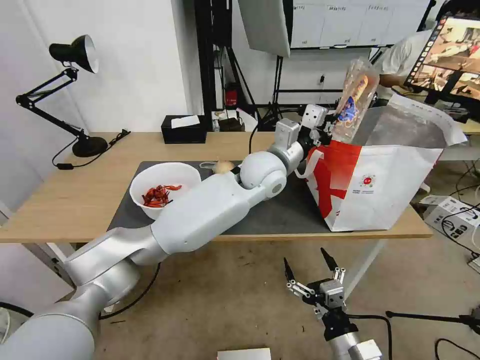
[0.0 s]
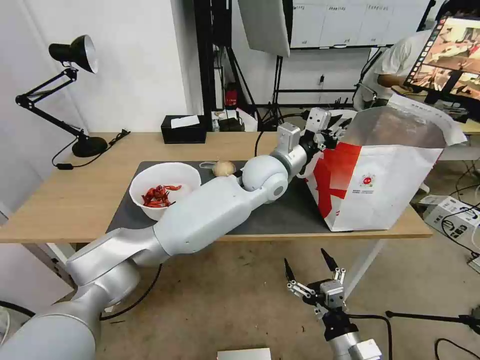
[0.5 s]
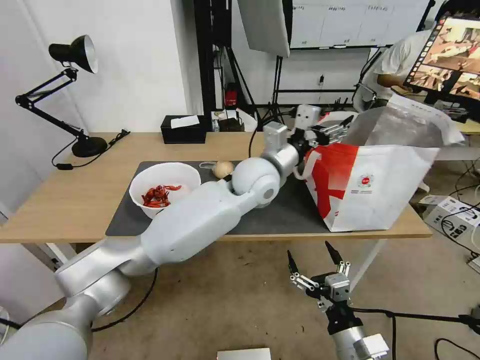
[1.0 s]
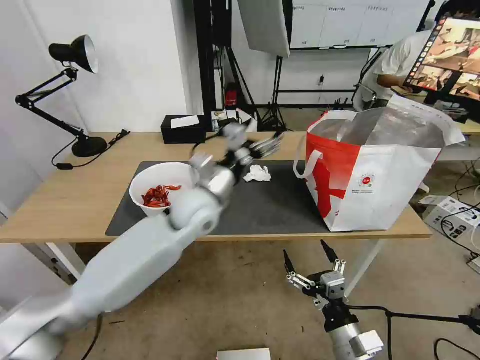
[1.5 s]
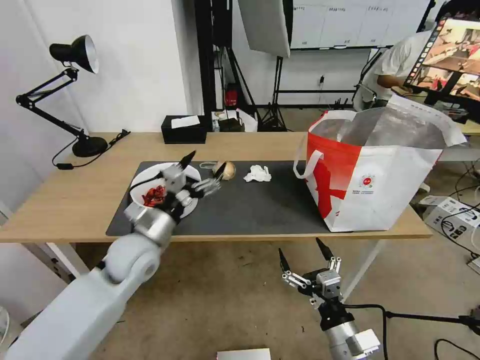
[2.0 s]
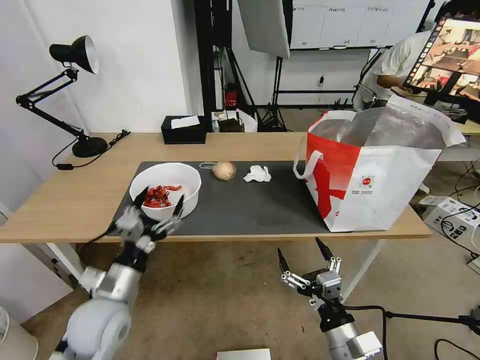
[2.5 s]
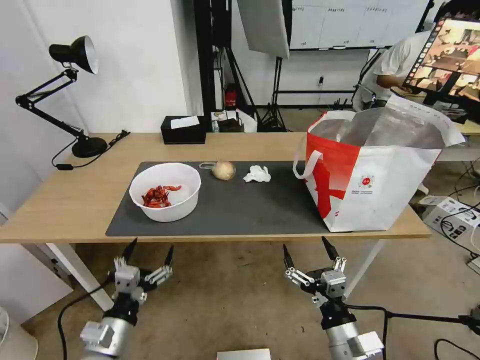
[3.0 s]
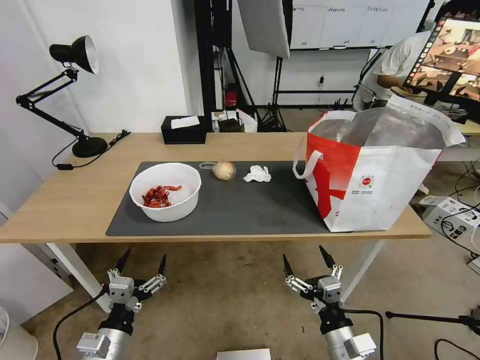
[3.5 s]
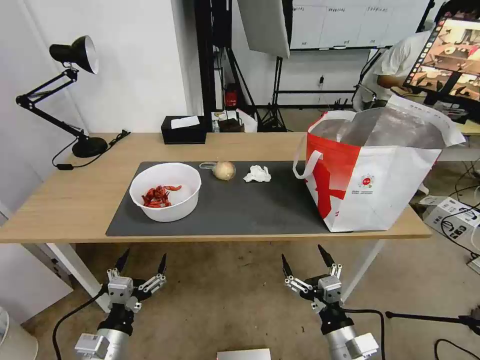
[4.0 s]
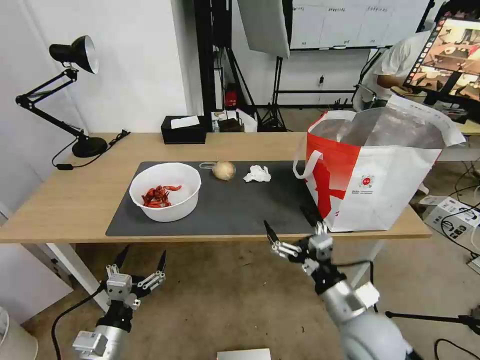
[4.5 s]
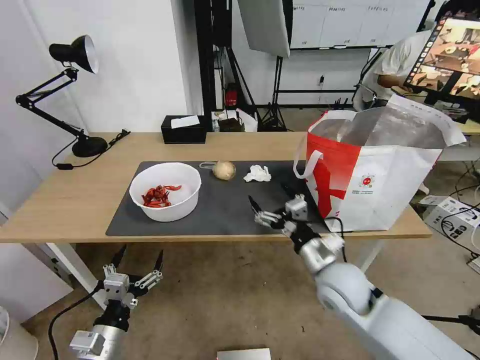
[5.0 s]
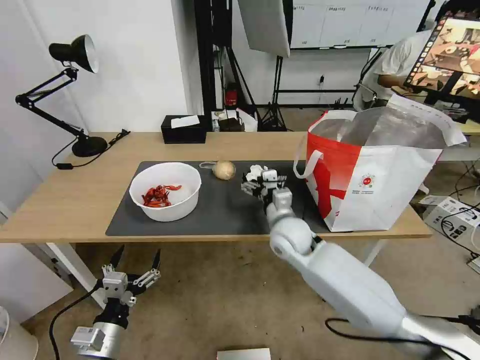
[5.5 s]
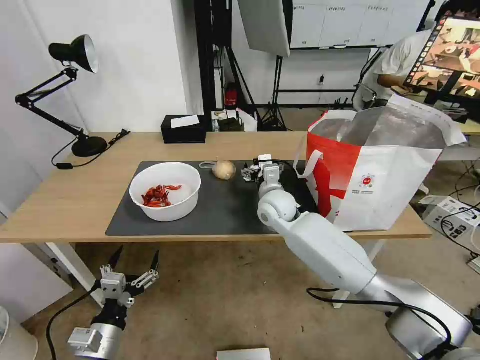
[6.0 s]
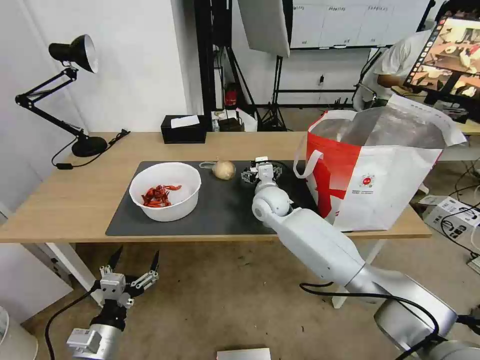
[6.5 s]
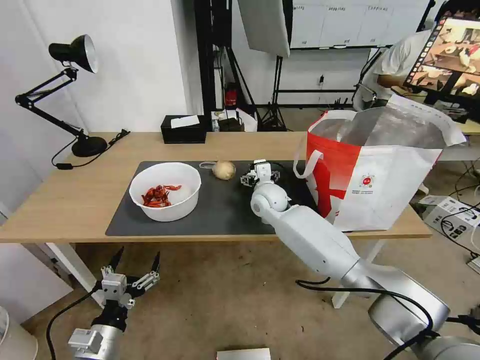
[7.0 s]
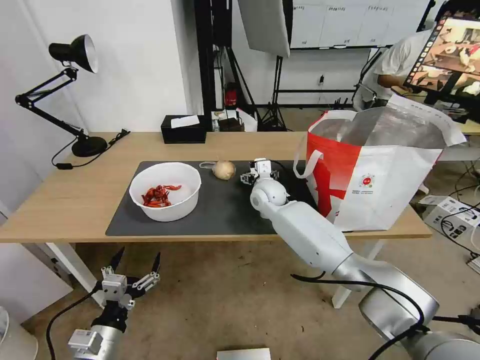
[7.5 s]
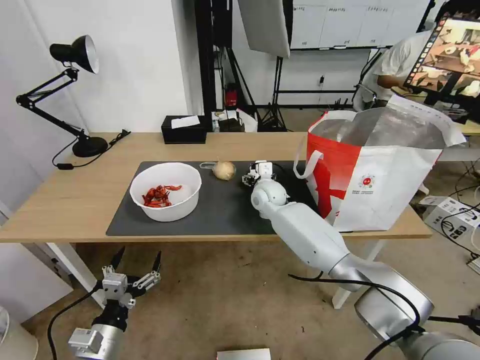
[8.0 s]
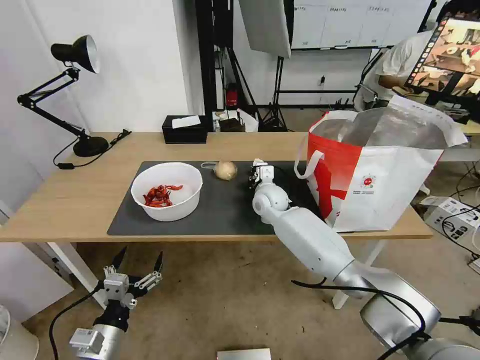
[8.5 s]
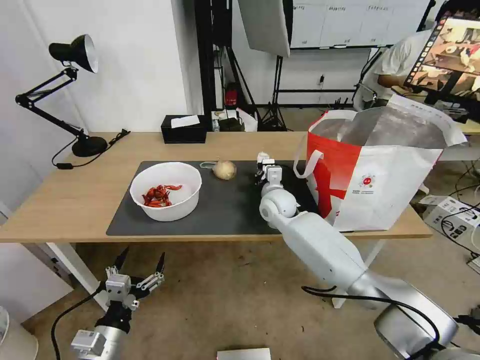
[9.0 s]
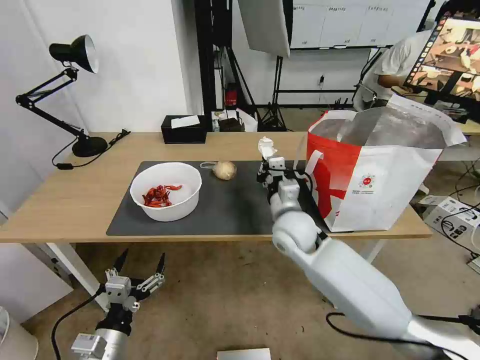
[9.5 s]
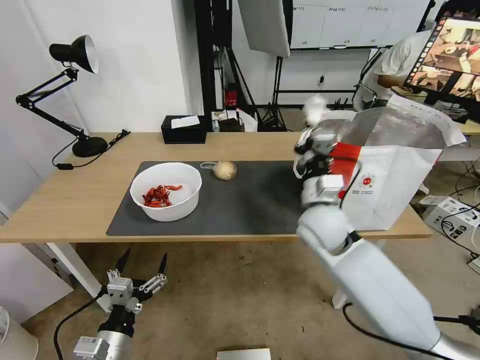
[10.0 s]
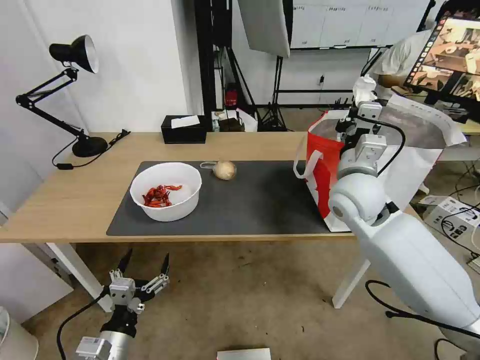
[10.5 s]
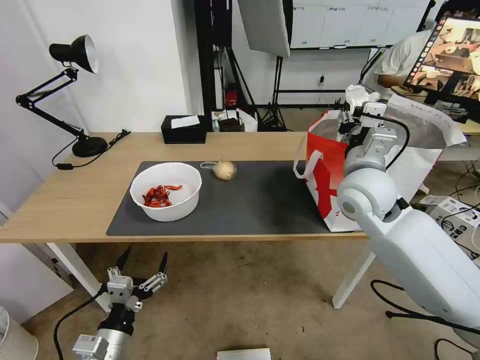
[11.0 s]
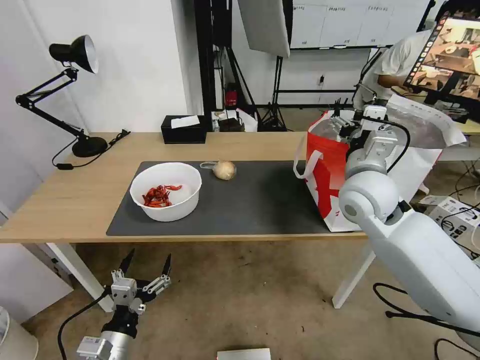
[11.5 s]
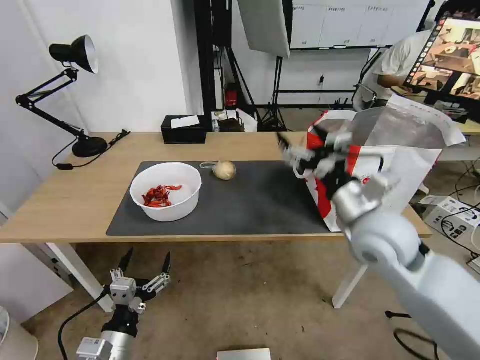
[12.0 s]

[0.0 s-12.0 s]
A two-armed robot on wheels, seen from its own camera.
Task of the whole recording: Pick up the trash from the table and place it into the takeout bag.
0.0 to 2.0 s: The left gripper goes about 35 cm to the left, backward and downward, and opens its fingers.
2.0 to 4.0 s: The left gripper is displaced backward and downward by about 25 cm.
4.0 to 6.0 s: The right gripper travels forward by about 35 cm.
6.0 to 8.0 s: The right gripper is displaced forward by roughly 5 cm.
8.0 to 10.0 s: The right gripper is displaced backward, to the right and upward by approximately 20 cm, and closes its fingers.
10.0 to 12.0 s: The right gripper is displaced to the right, backward and upward by some 10 cm, and opens up.

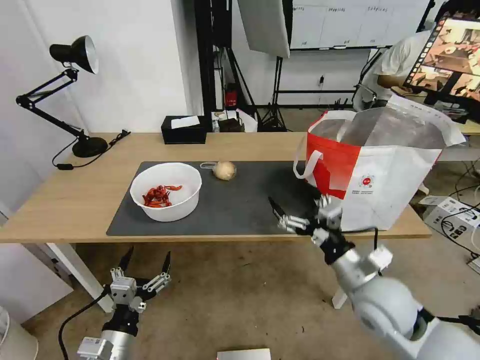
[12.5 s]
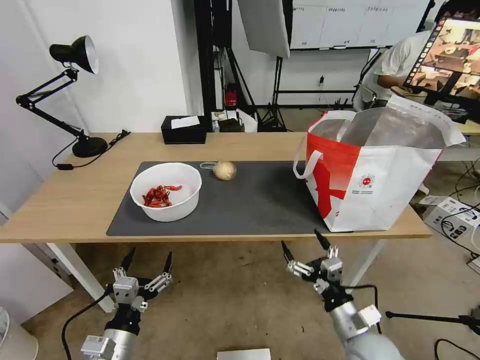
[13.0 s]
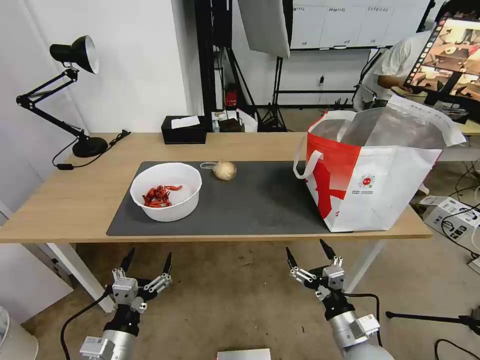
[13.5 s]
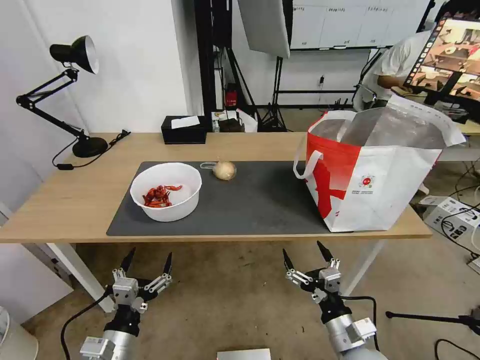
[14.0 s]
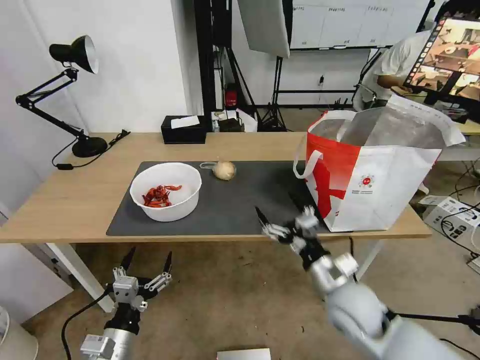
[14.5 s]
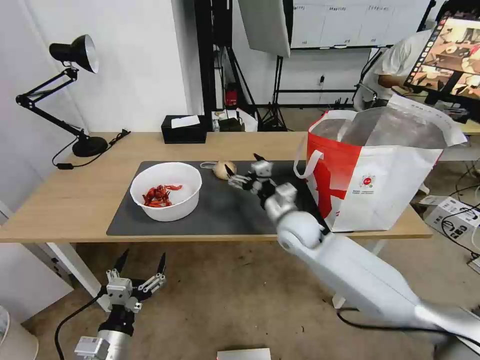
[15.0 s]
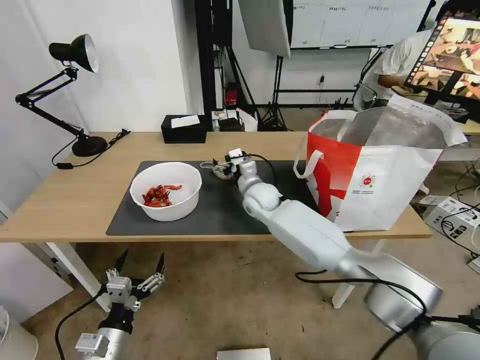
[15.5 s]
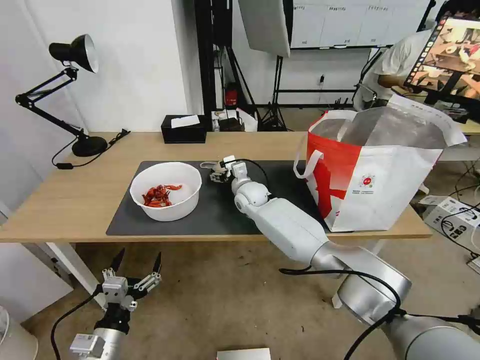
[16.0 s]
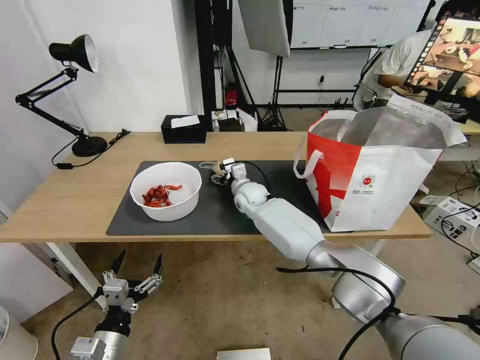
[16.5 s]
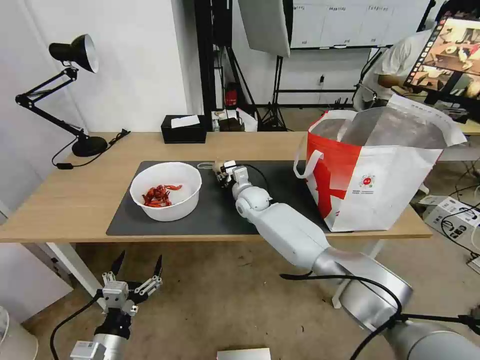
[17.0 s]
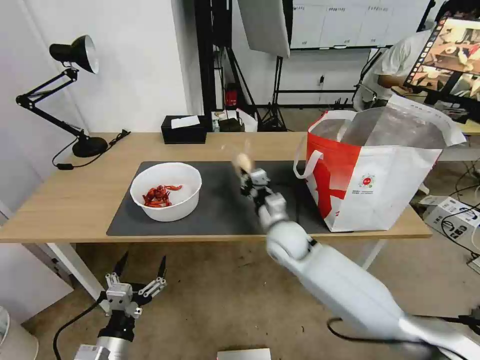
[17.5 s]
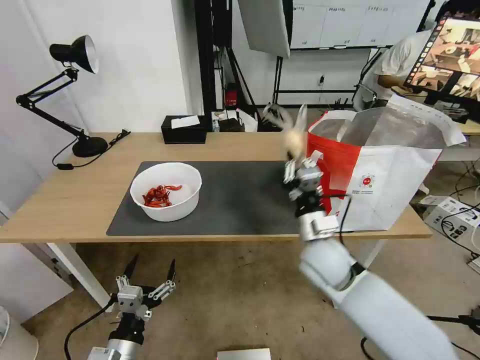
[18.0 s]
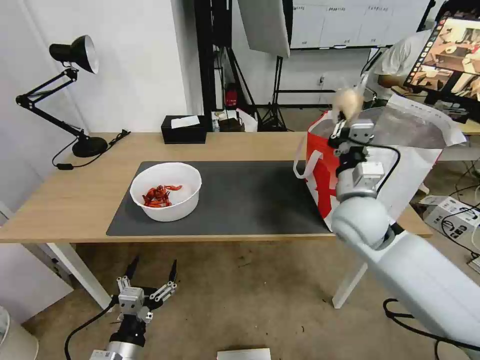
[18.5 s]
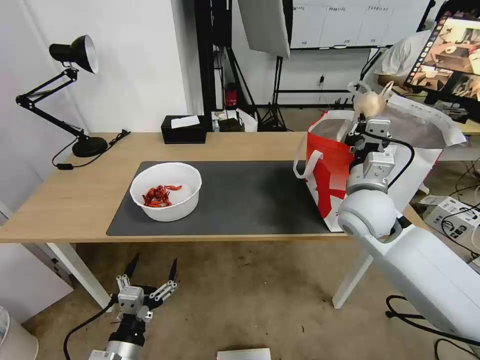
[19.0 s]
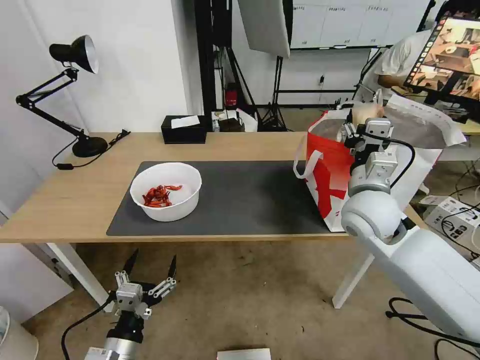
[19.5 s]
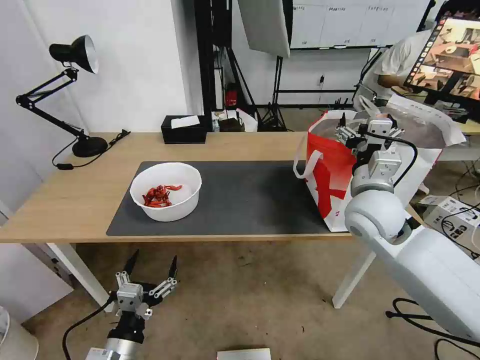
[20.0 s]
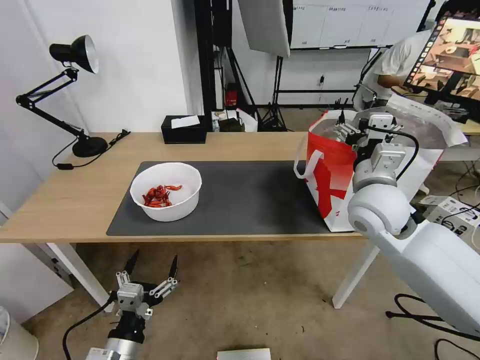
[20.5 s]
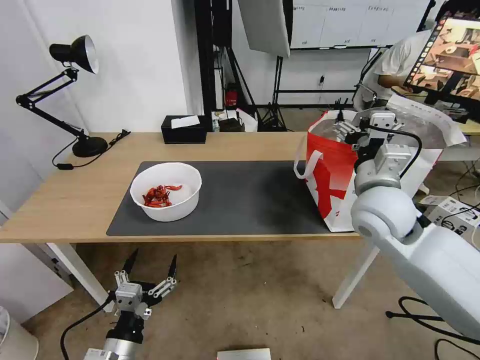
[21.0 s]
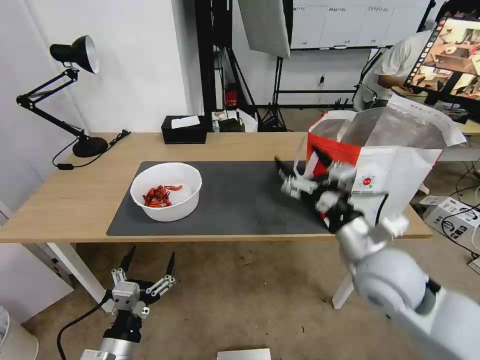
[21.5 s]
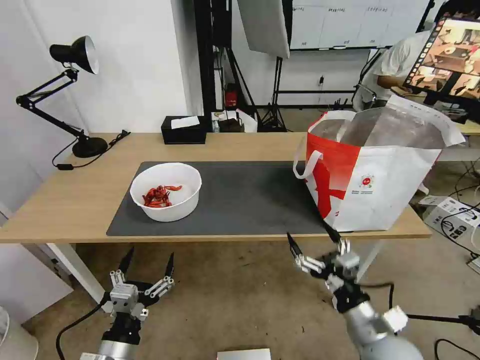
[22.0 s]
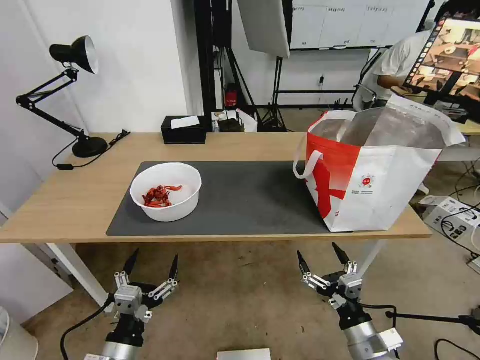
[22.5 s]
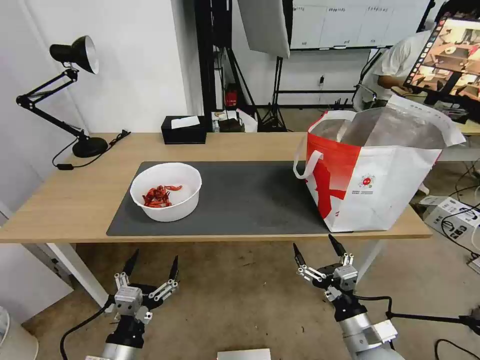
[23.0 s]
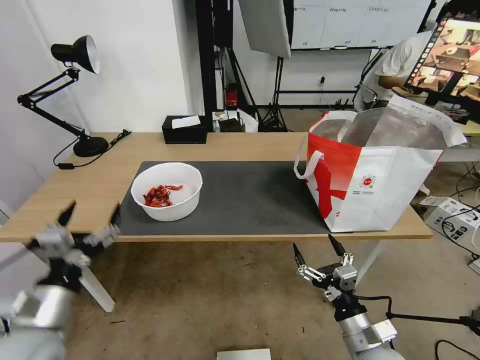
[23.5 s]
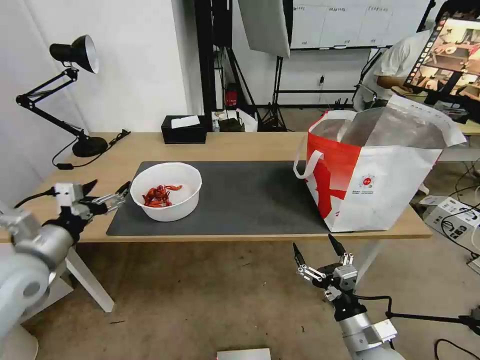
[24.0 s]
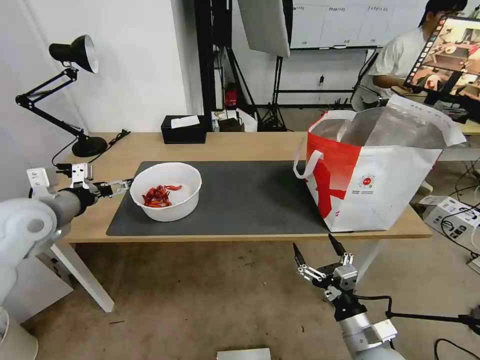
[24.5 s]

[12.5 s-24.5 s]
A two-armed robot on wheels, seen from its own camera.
Task of the whole recording: Pick up the trash from the table and place it into the takeout bag.
12.5 to 14.5 s: The right gripper travels downward and back again, approximately 15 cm each way.
14.5 to 16.5 s: The right gripper heads forward and to the left, covering roughly 35 cm.
16.5 to 18.5 s: The right gripper heads backward, to the right and upward, covering approximately 30 cm, and closes up.
18.5 to 20.5 s: The right gripper opens.
20.5 to 22.5 s: The right gripper goes approximately 35 cm downward and backward.
22.5 to 24.5 s: The left gripper moves forward, upward and to the left, approximately 35 cm.

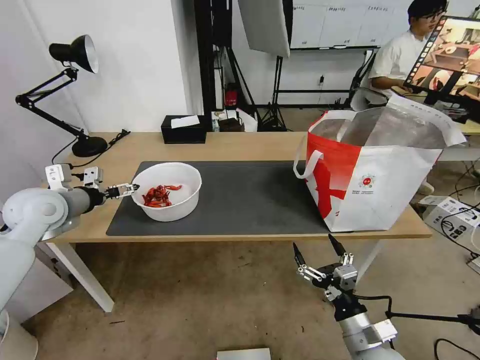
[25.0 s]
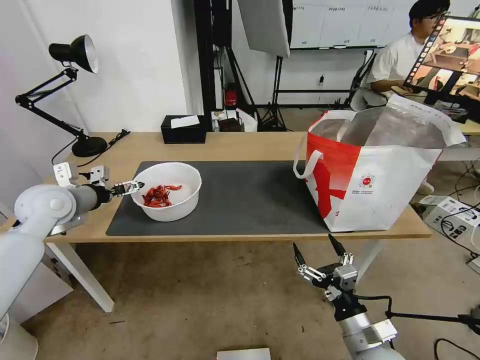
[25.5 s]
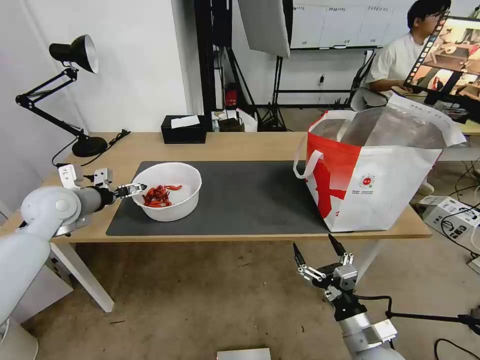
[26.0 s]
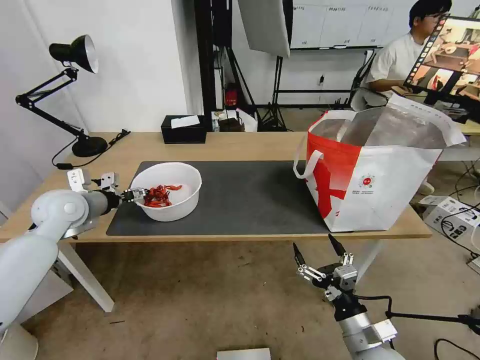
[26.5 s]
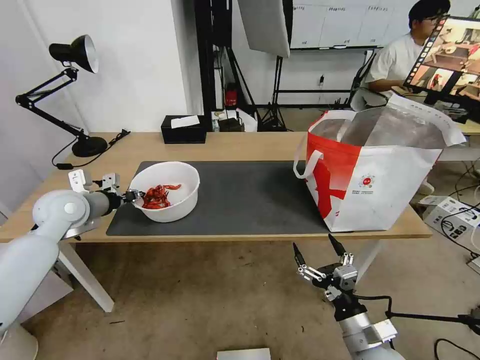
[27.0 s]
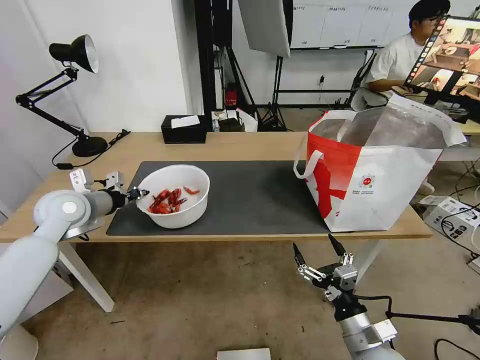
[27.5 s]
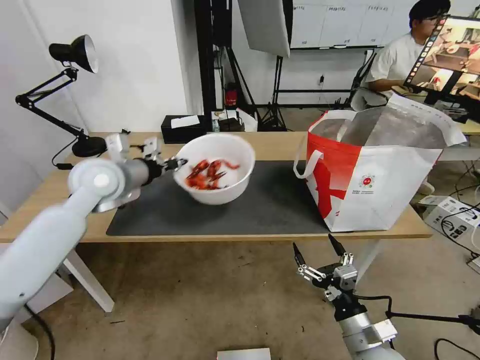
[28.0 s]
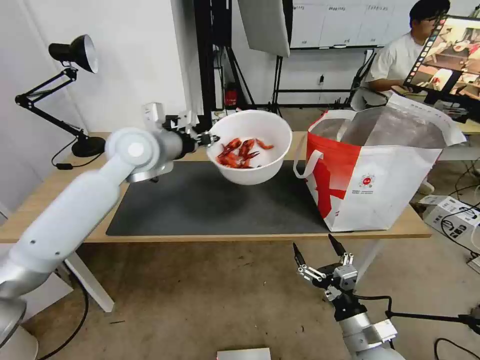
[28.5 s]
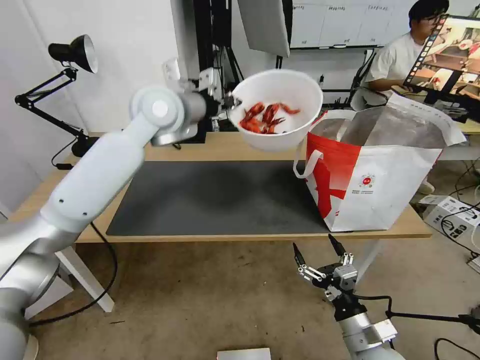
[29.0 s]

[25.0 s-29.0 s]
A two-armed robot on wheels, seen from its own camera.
Task of the whole recording: Pick up the trash from the table and place it into the takeout bag.
25.0 to 27.0 s: The left gripper closes its fingers.
27.0 to 29.0 s: The left gripper heads to the right and upward, covering roughly 30 cm.
